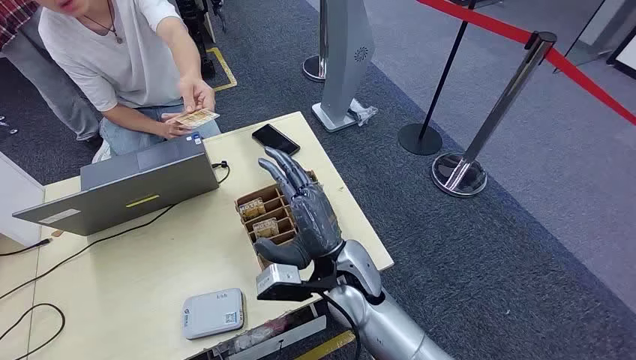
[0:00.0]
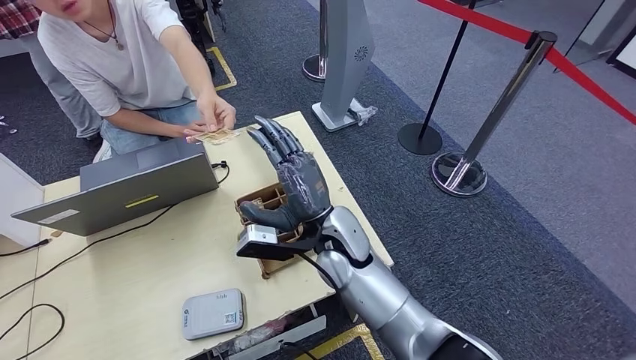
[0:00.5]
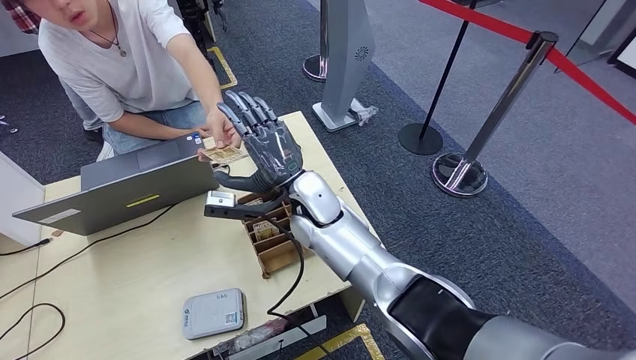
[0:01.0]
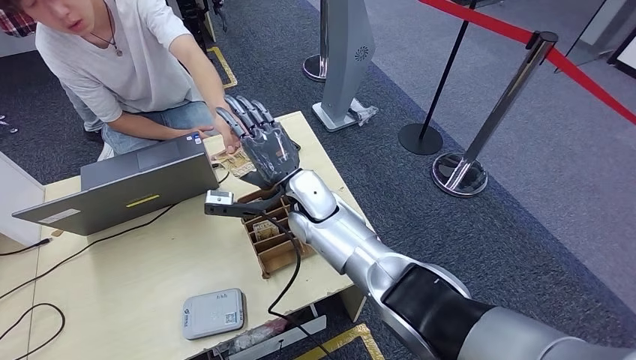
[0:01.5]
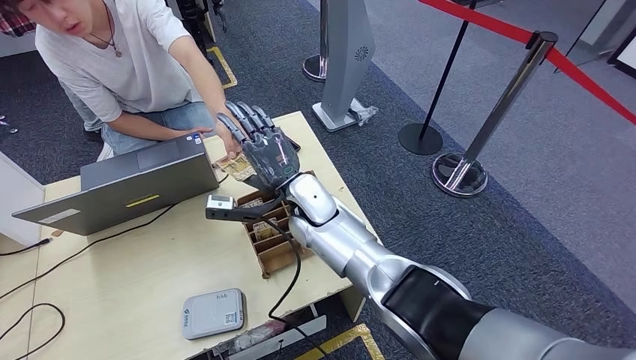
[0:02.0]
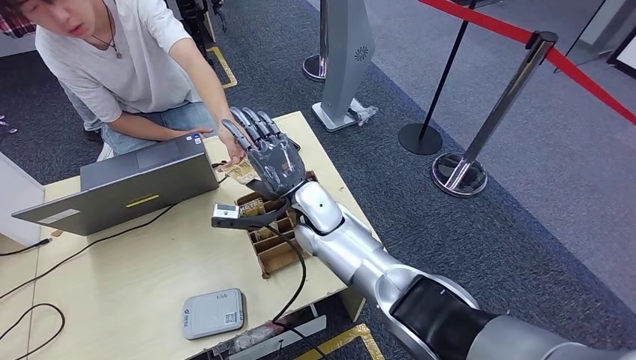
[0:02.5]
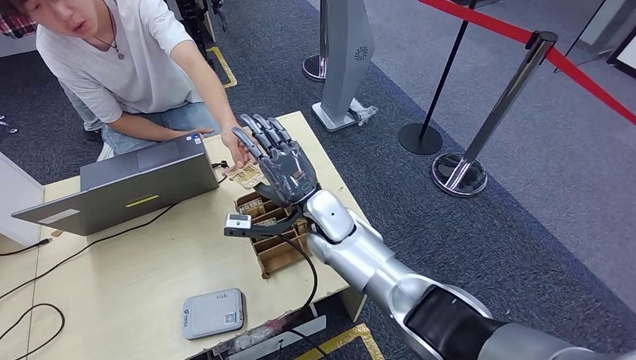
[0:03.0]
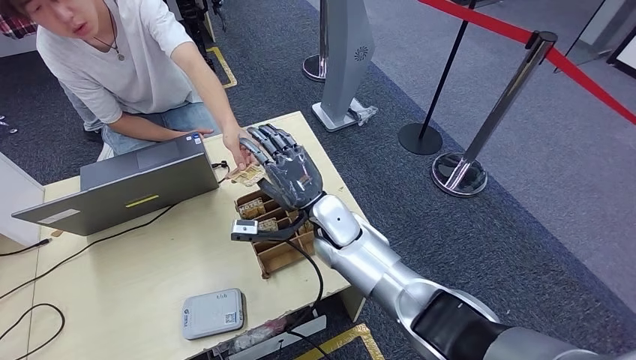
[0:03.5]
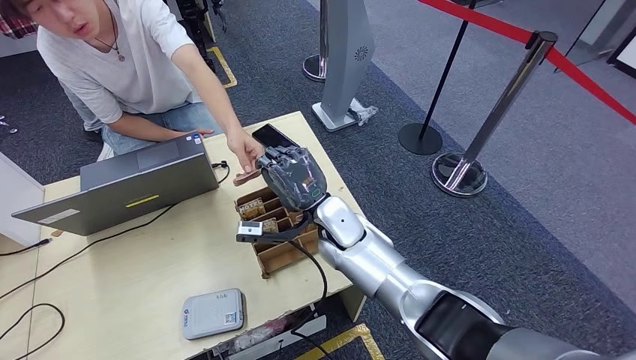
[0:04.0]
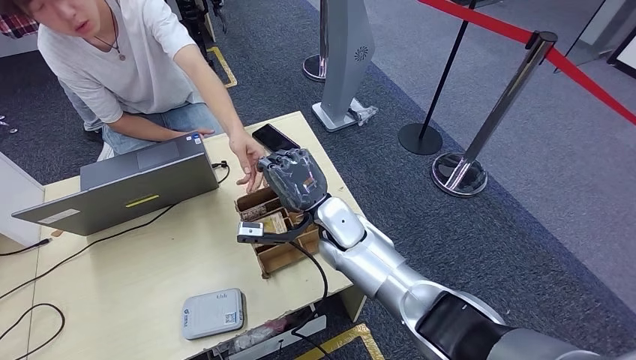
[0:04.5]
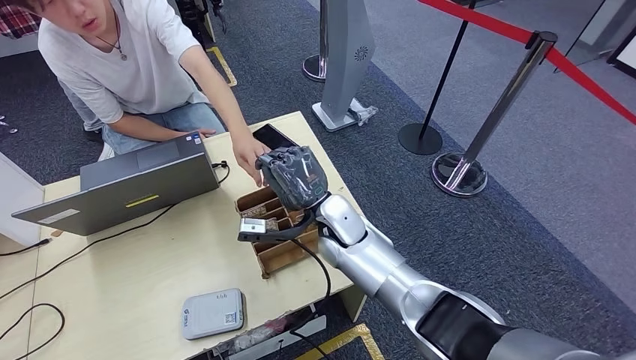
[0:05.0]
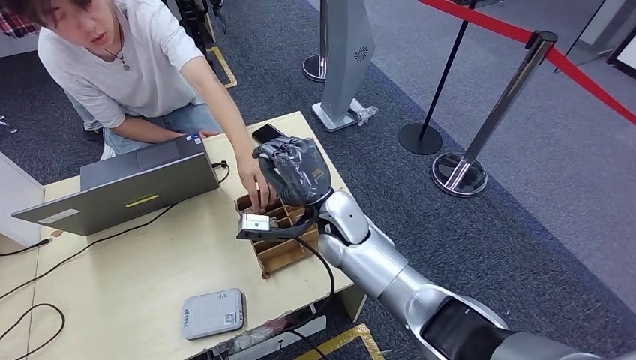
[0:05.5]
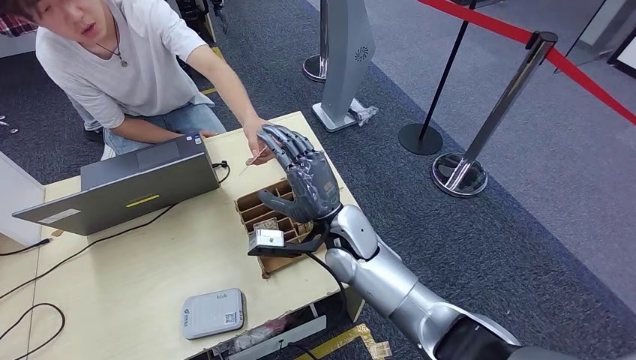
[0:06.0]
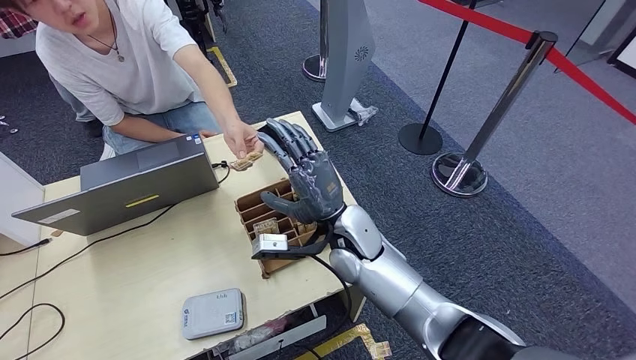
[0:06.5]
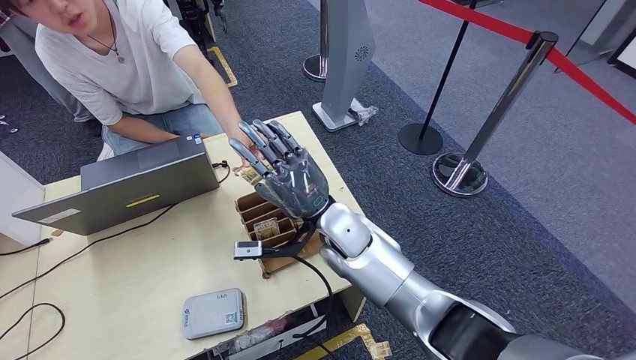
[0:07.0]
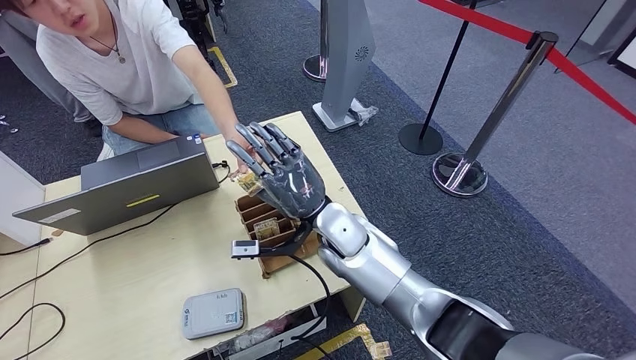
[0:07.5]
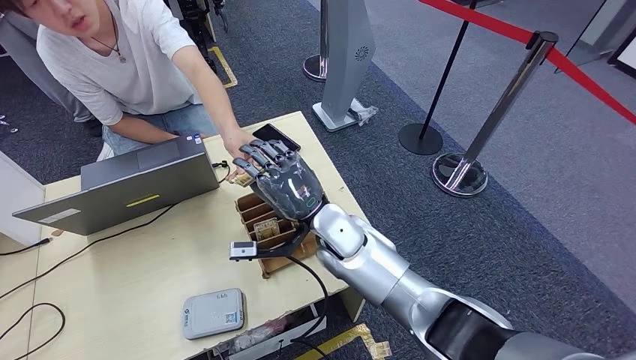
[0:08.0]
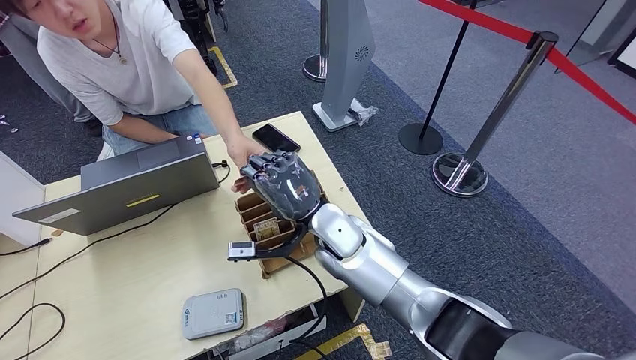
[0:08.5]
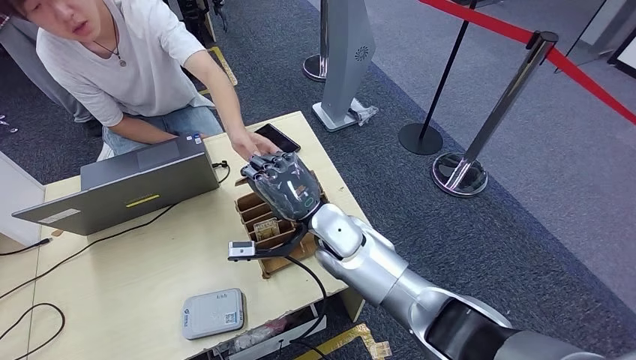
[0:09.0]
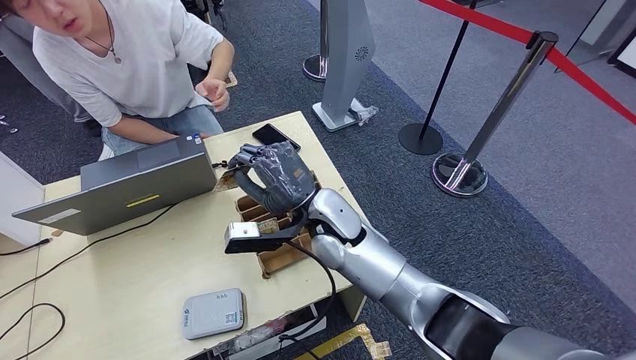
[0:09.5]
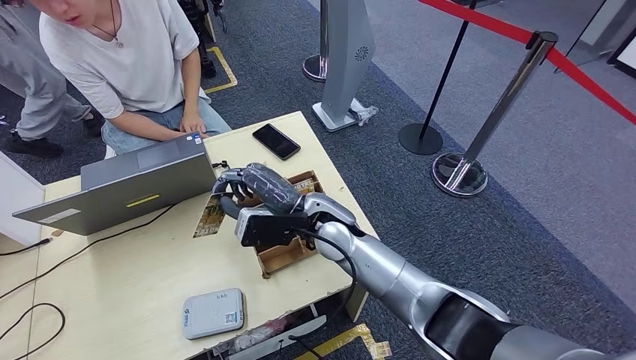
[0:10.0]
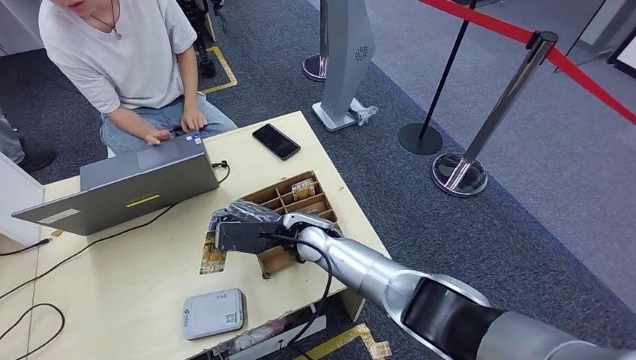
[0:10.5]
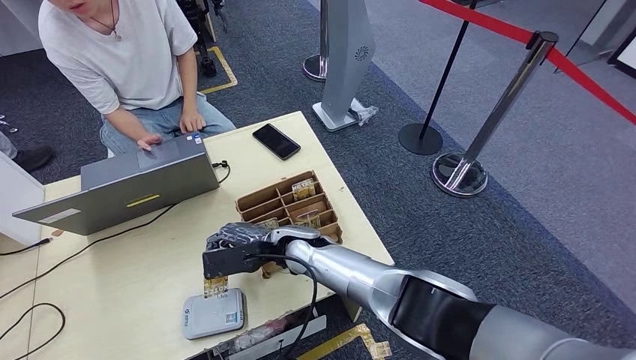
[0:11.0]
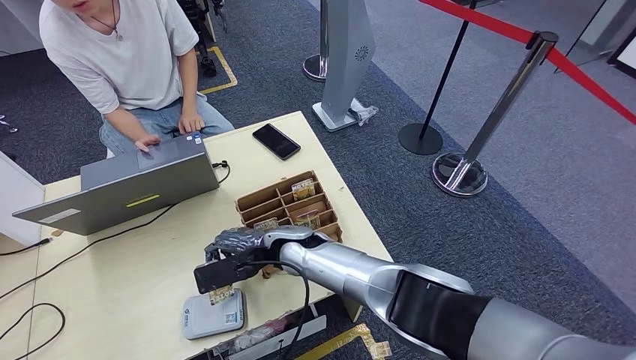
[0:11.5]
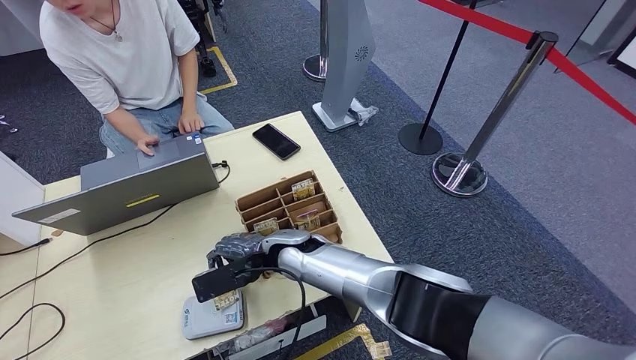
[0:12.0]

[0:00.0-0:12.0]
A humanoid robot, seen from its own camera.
Step, 0:00.0 to 0:09.0: Take the ID card from the person's hand.
0:02.0 to 0:04.0: The right hand shifts by about 5 cm.
0:10.0 to 0:12.0: The right hand goes some 10 cm downward and to the left.

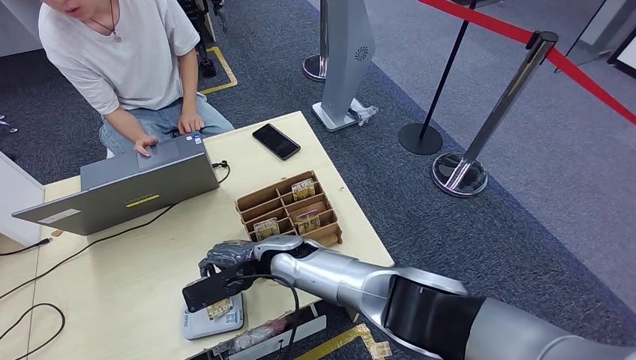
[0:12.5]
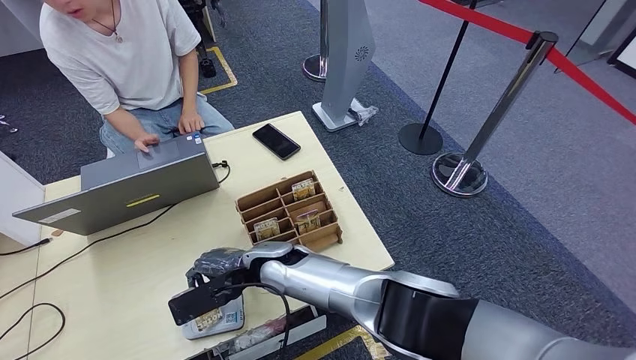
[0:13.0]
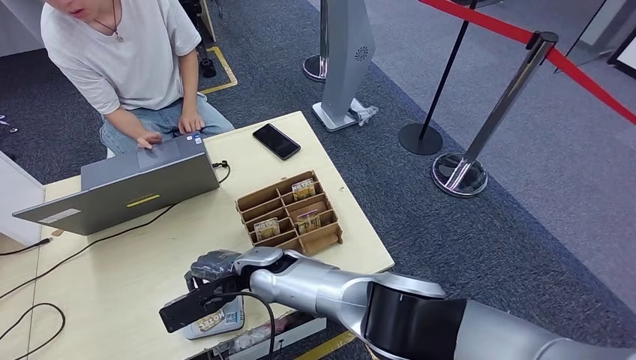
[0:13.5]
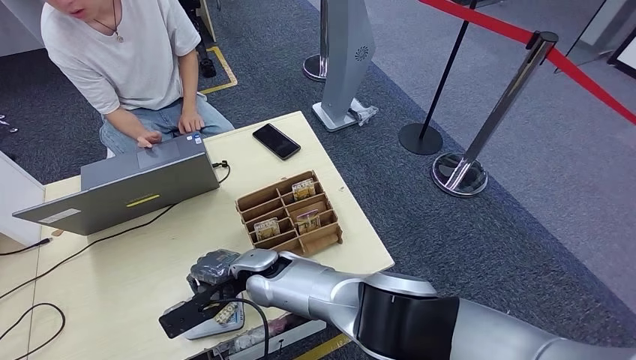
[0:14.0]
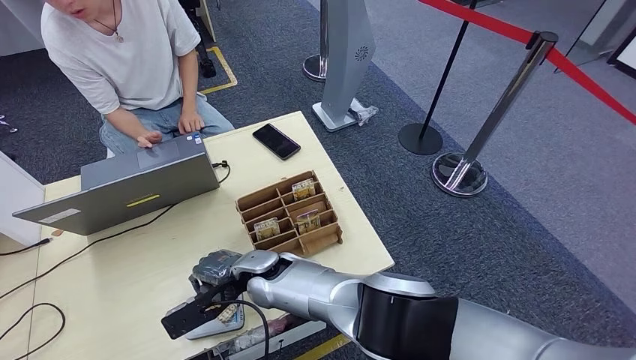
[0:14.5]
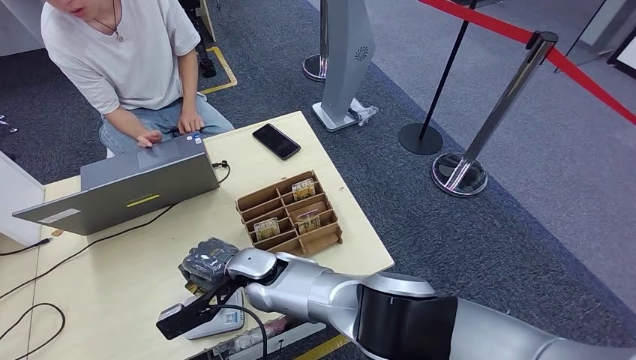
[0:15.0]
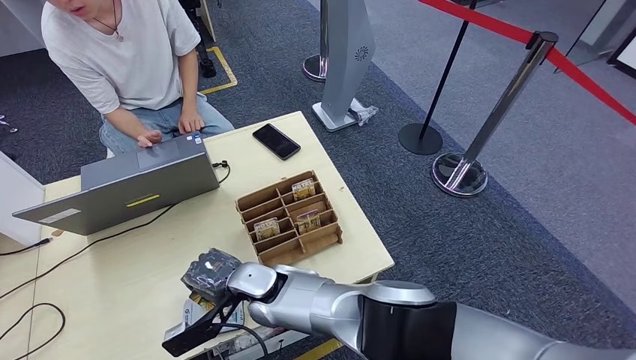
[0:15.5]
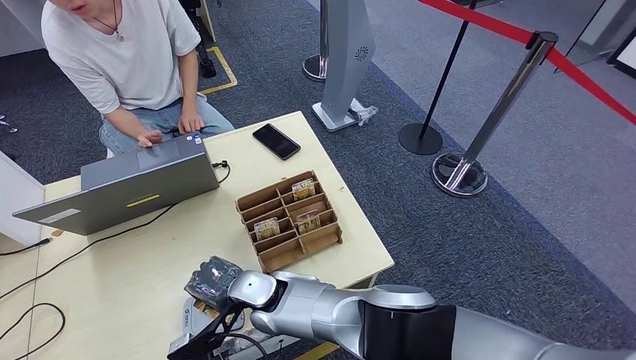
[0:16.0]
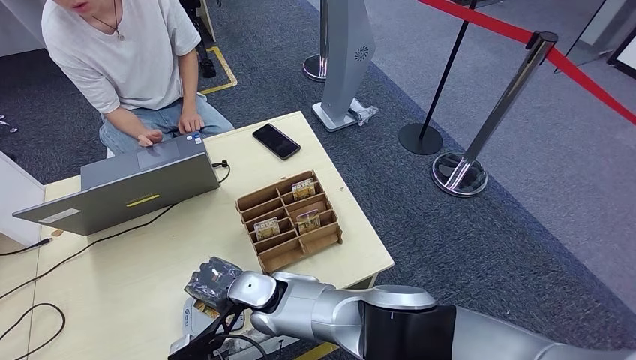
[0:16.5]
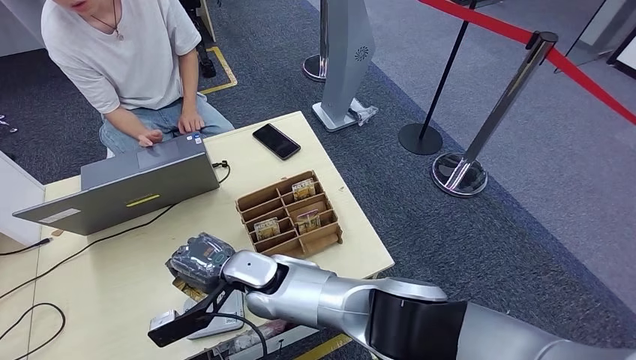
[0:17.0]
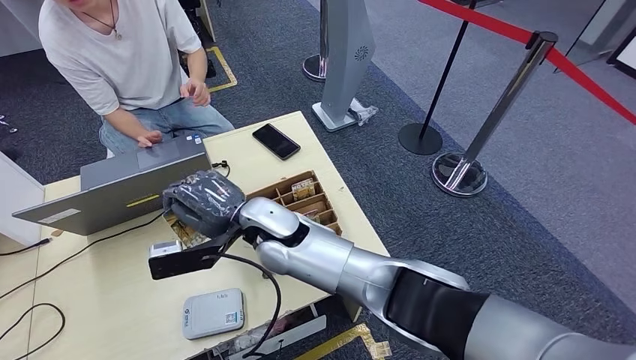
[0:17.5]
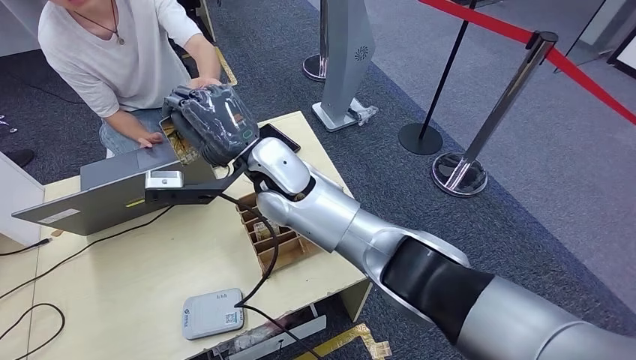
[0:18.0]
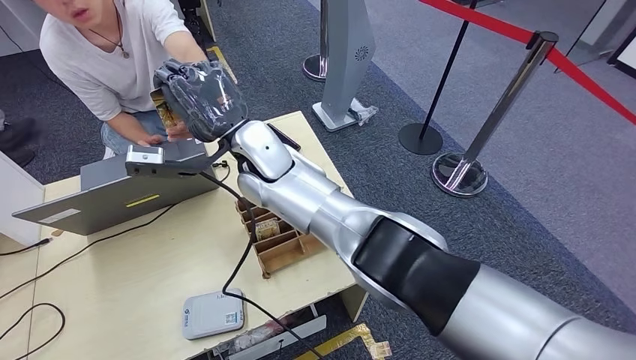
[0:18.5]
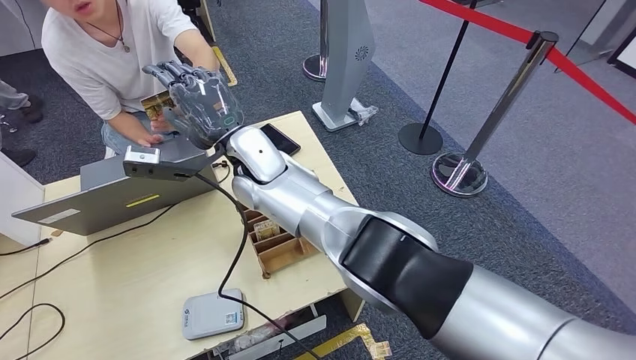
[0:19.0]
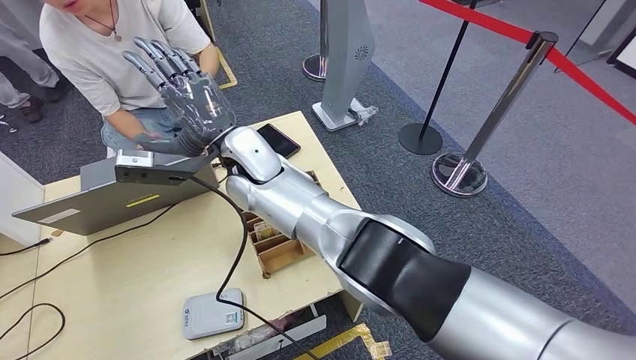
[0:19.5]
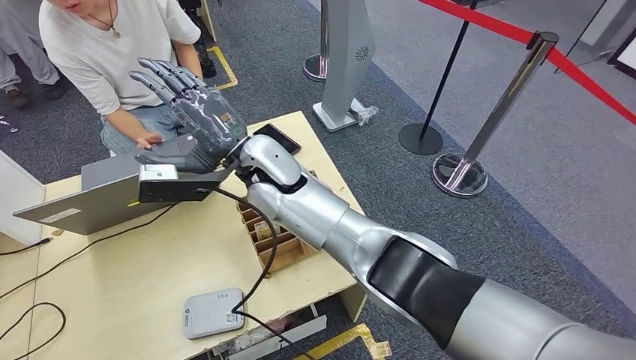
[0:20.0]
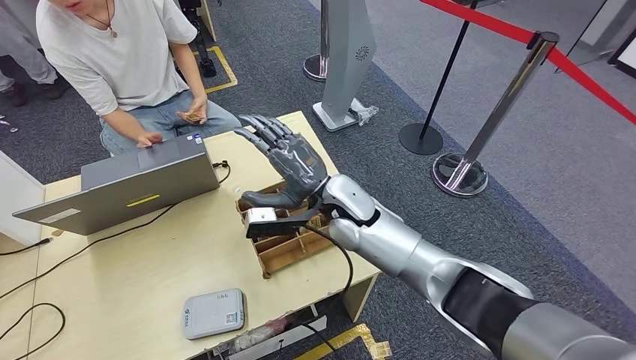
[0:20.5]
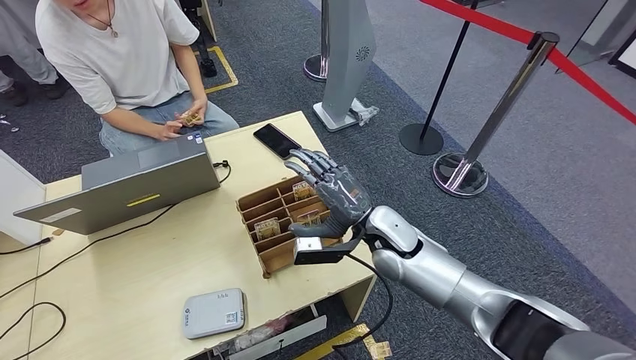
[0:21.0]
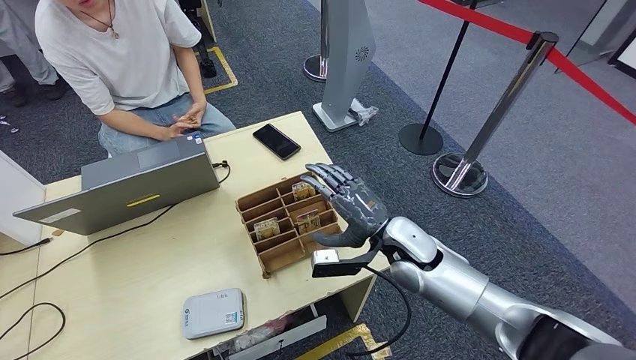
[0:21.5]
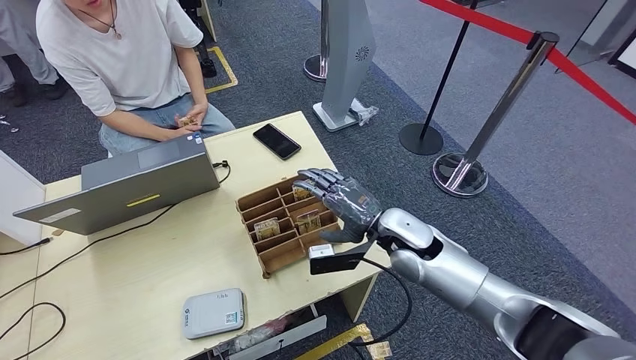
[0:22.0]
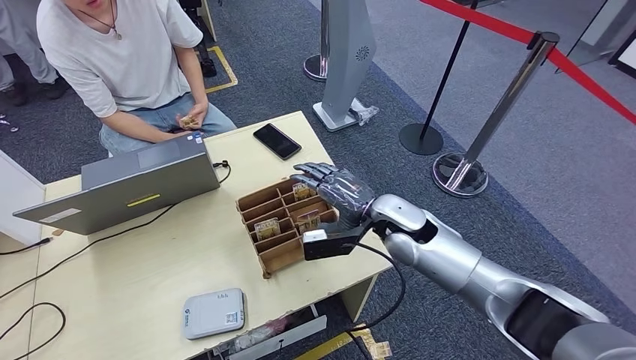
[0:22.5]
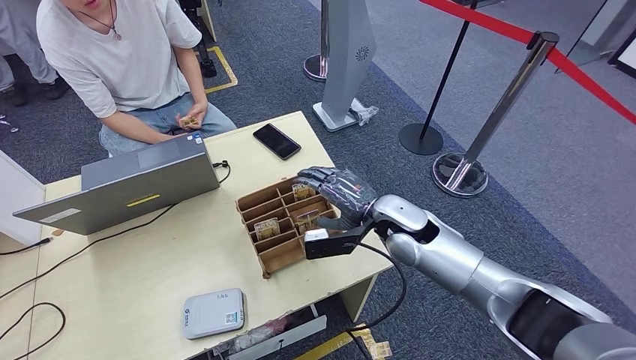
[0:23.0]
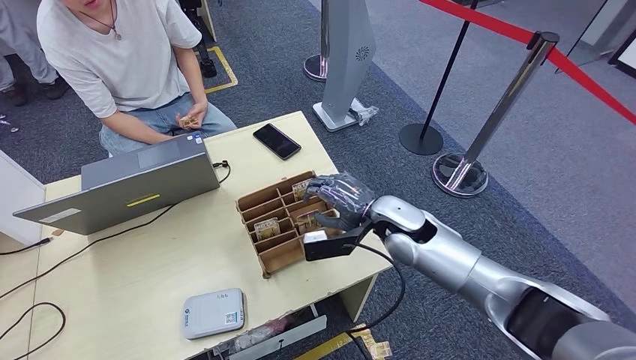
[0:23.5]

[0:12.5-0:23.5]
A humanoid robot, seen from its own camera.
Step, 0:12.5 to 0:19.5: Hand the ID card to the person.
0:12.5 to 0:14.5: There are only small adjustments of the hands.
0:18.0 to 0:20.0: The hands move only a little.
0:20.0 to 0:21.5: The right hand travels to the right, backward and downward by some 30 cm.
0:21.5 to 0:23.5: The hands move only a little.
